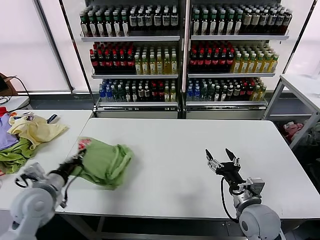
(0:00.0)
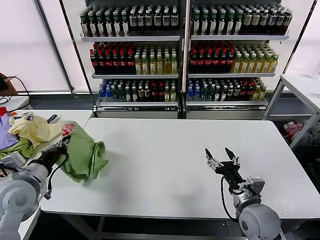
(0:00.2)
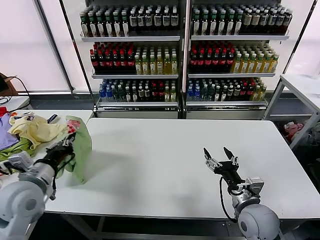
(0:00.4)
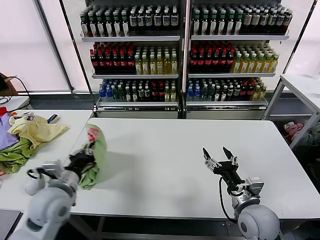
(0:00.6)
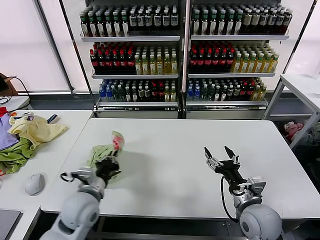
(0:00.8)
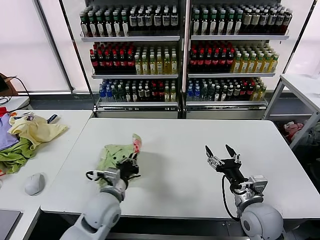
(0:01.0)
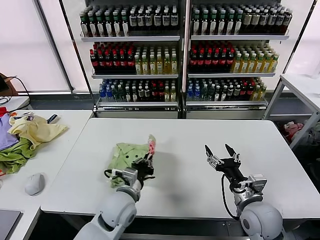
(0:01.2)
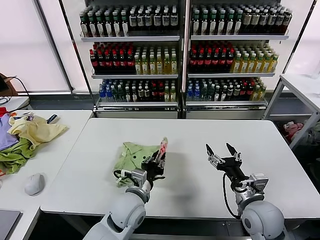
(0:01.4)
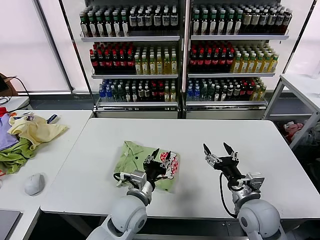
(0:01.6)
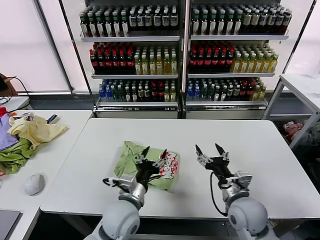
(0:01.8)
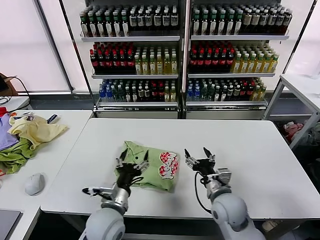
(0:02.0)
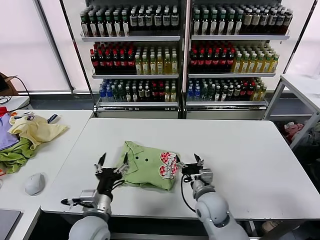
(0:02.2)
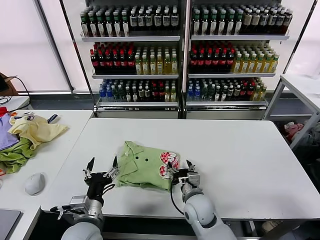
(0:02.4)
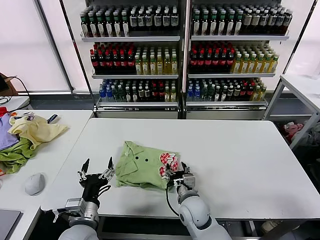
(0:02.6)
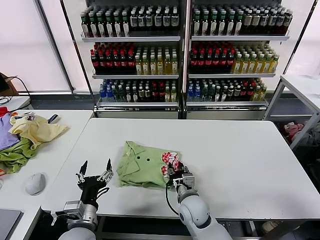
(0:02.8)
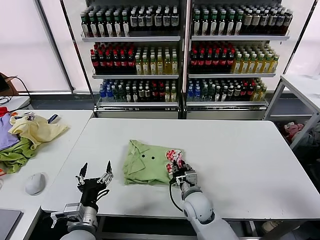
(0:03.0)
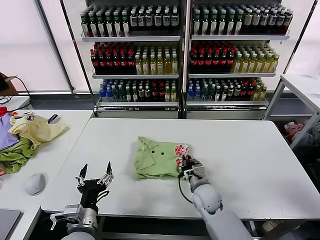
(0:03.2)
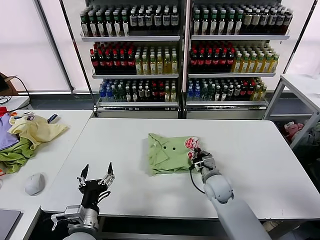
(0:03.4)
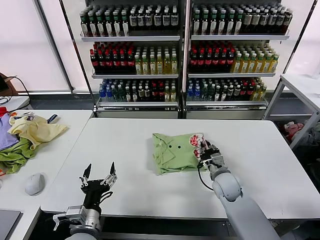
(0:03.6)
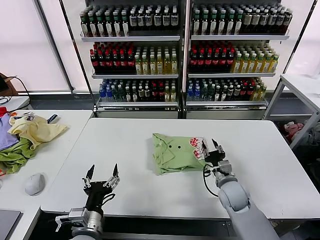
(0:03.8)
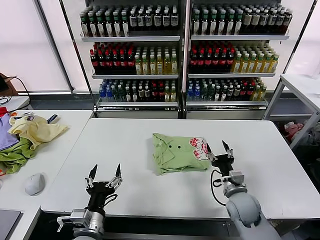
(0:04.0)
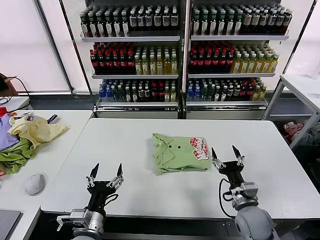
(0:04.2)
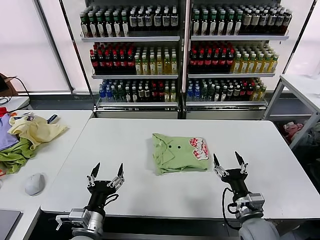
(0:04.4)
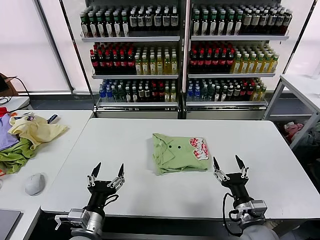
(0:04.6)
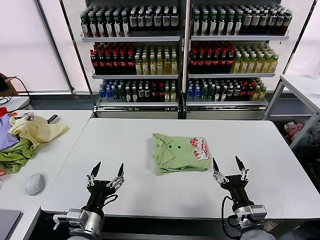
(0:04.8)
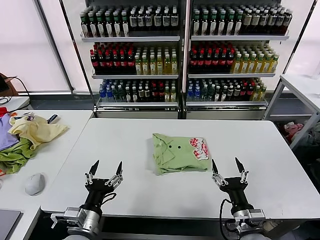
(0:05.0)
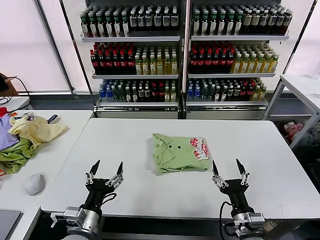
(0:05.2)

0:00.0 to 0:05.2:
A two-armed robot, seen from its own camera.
Task of the whole recording: fold and organize the clothes.
Step, 0:01.8 to 0:03.8: Drag the clothes to the center of the table.
0:00.0 to 0:01.8: The left gripper travels to the right by roughly 25 cm, and opens.
0:01.8 to 0:03.4: The left gripper moves to the left and backward, approximately 15 cm, while the right gripper travels forward, downward and to the left by approximately 15 cm, and closes.
0:03.4 to 0:05.2: The right gripper shifts some 20 cm backward, and opens its fingers.
